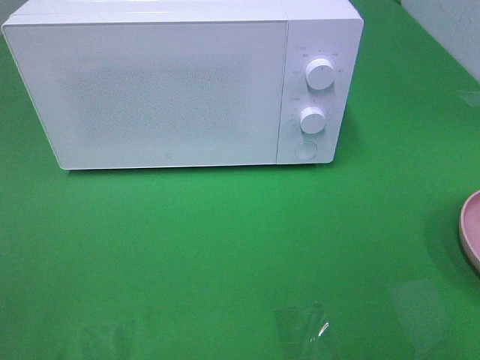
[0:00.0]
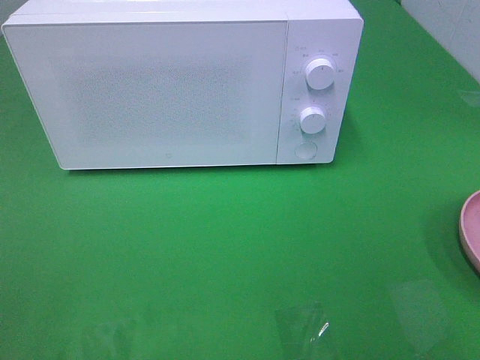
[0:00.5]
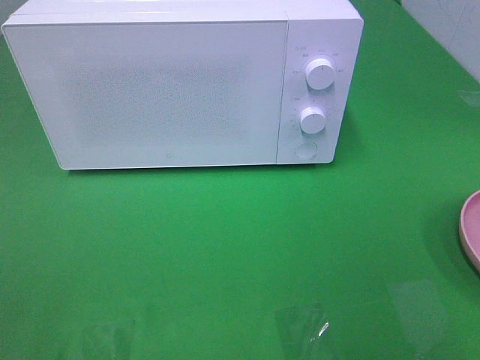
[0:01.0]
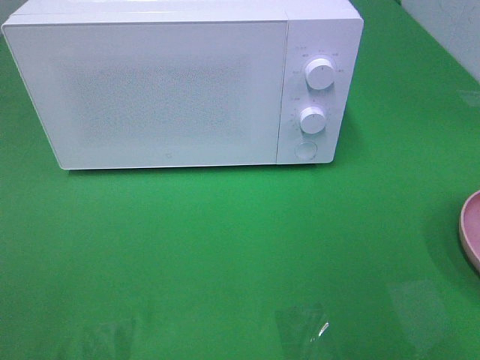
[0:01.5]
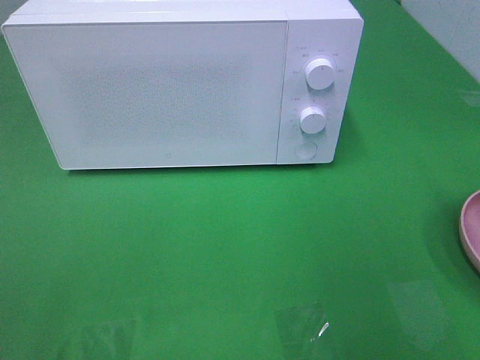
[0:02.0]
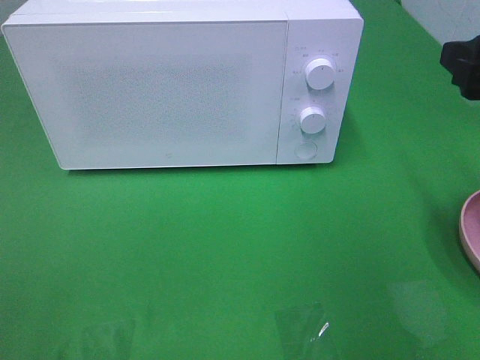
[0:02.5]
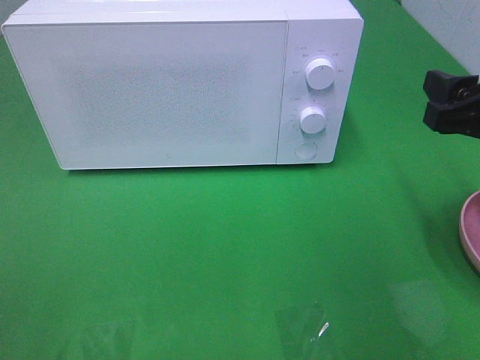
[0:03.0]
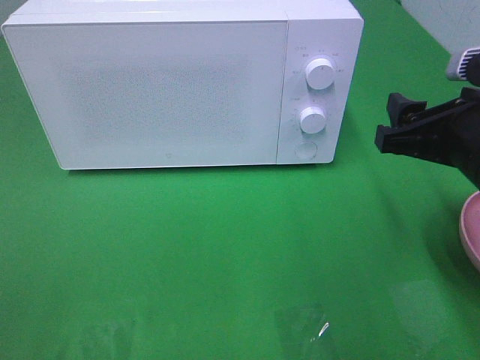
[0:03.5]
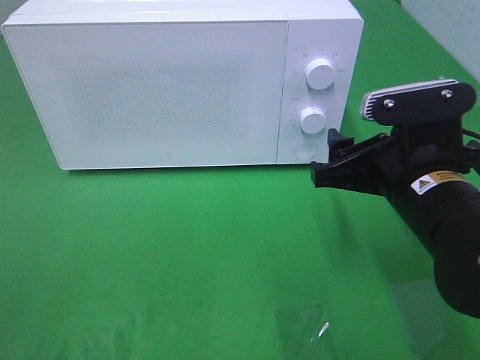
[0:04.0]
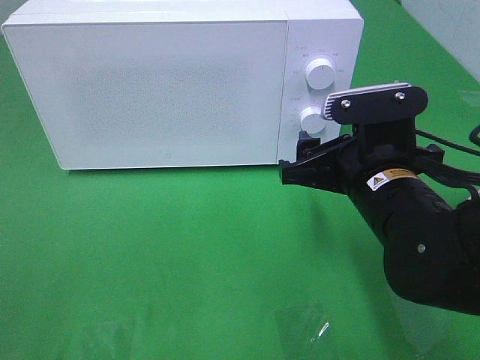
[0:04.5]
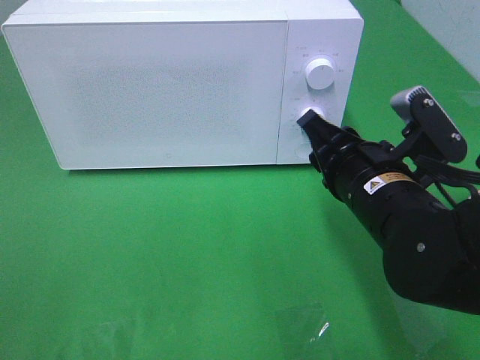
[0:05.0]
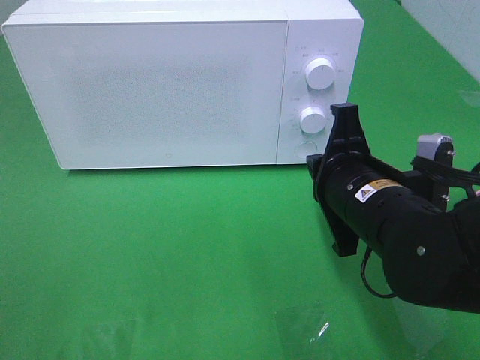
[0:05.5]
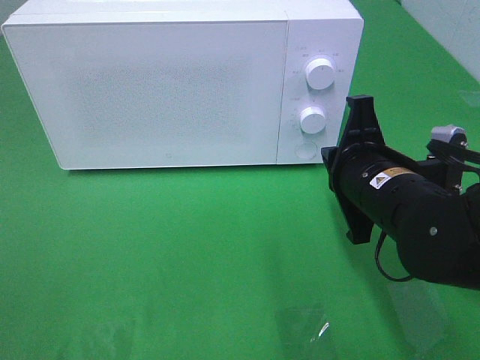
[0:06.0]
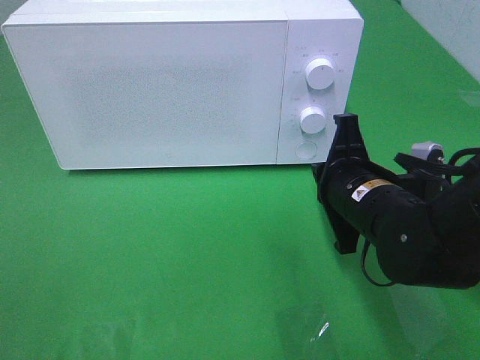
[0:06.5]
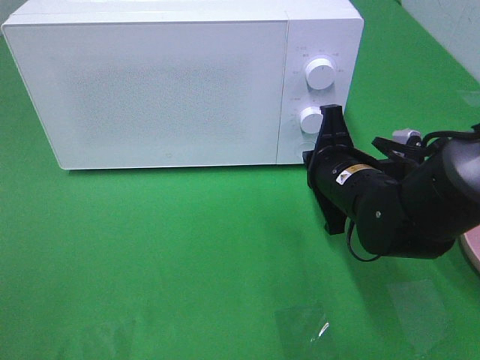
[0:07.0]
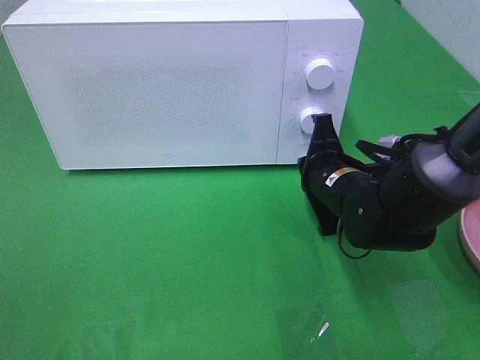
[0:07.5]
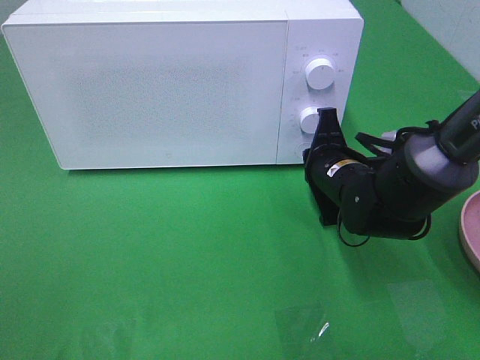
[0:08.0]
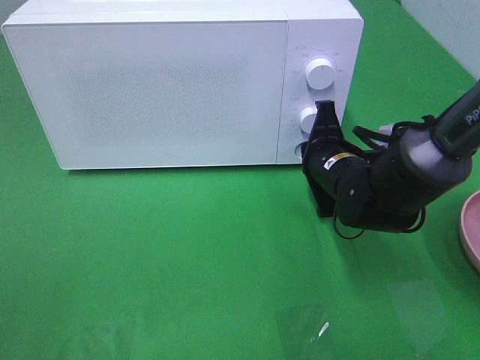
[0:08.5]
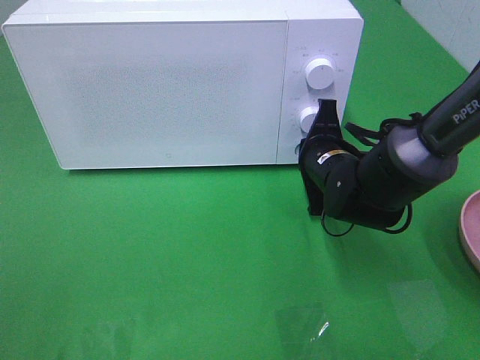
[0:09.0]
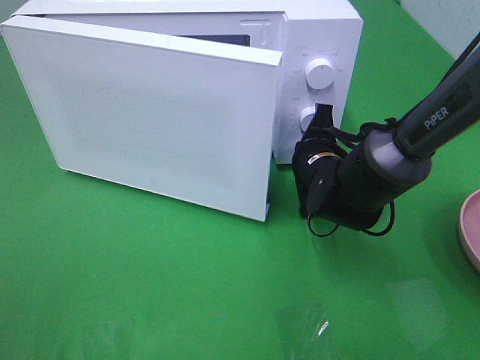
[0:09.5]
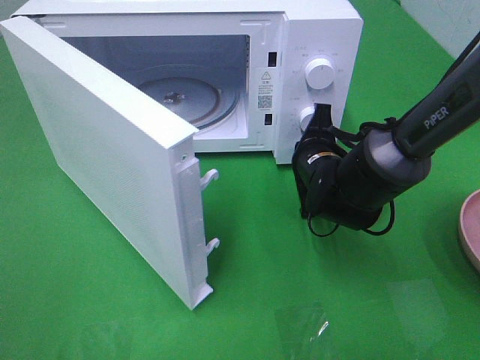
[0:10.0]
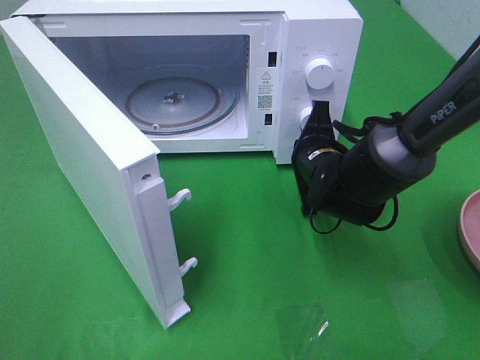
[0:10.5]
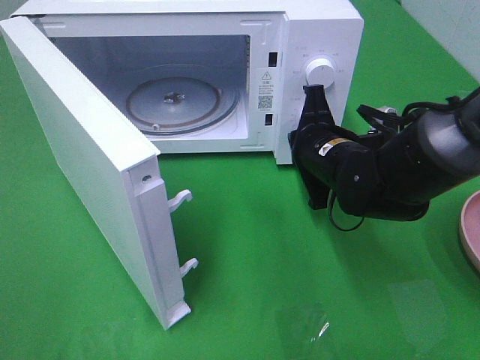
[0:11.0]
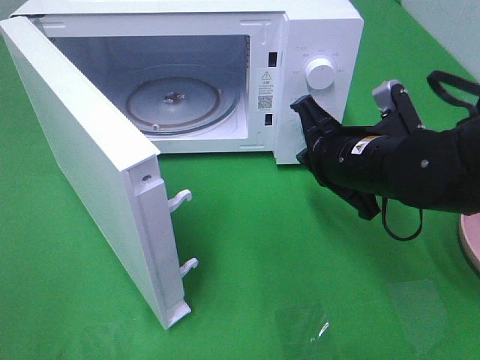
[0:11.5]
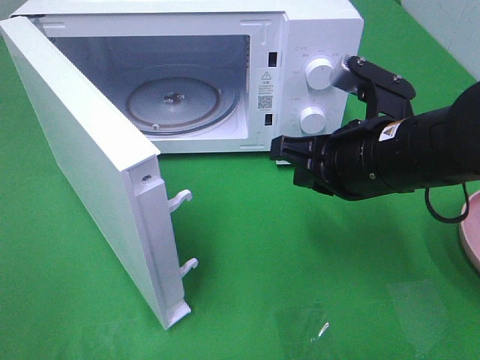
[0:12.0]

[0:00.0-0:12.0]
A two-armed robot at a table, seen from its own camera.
Task of the whole recording: Heat the burger.
Step, 0:00.0 to 0:10.5: Right hand: press the switch.
0:02.0 to 0:04.0: The right gripper goes some 20 cm downward and to the left.
0:04.0 to 0:06.0: The right gripper closes.
0:06.0 to 0:08.0: The right gripper is displaced forward and downward by roughly 10 cm.
0:10.0 to 0:12.0: The right gripper travels upward and backward by approximately 15 cm.

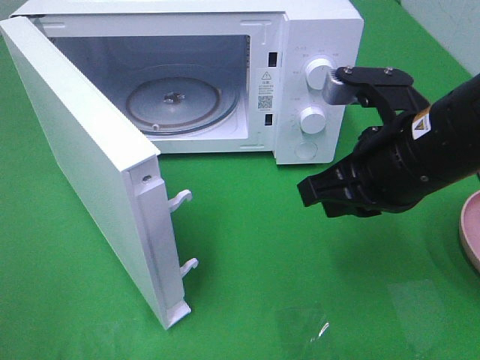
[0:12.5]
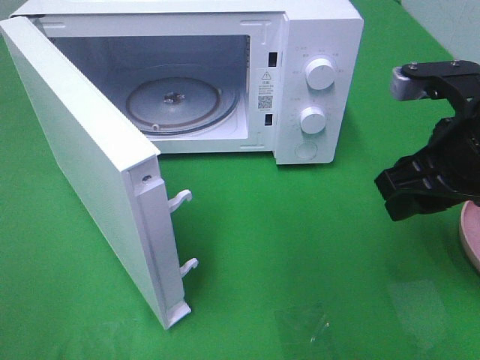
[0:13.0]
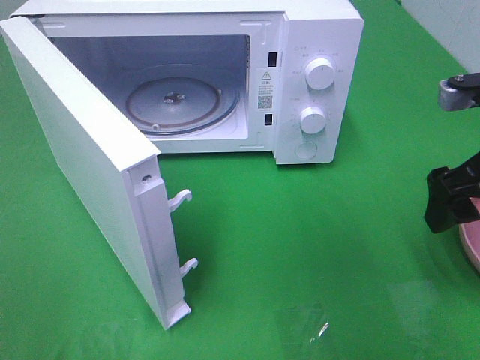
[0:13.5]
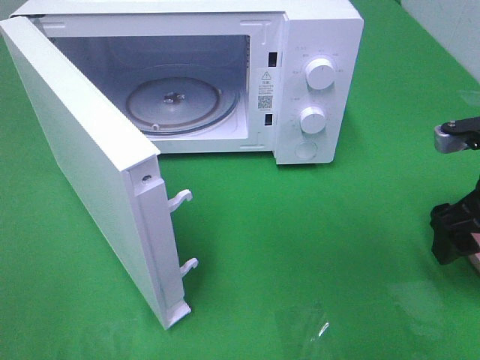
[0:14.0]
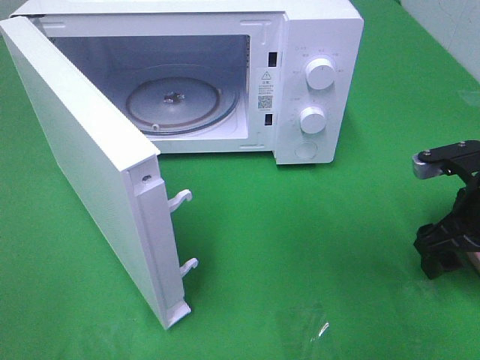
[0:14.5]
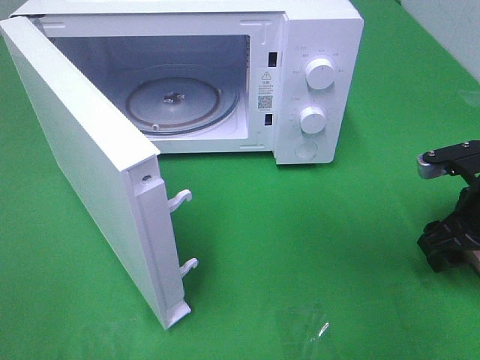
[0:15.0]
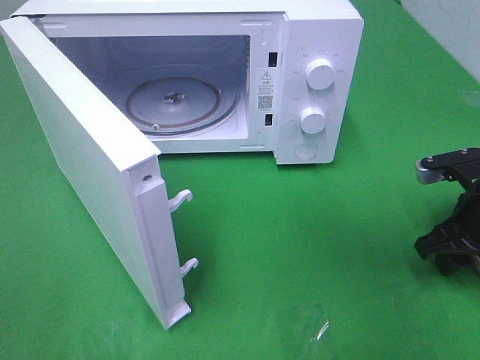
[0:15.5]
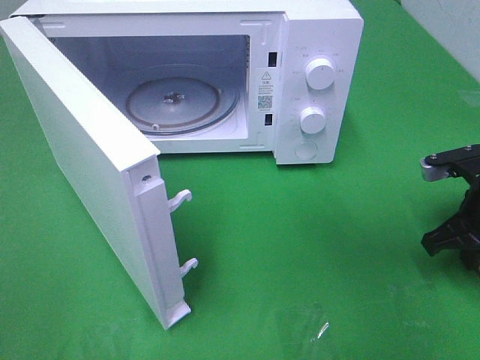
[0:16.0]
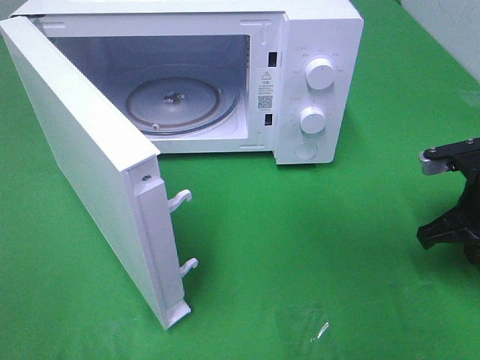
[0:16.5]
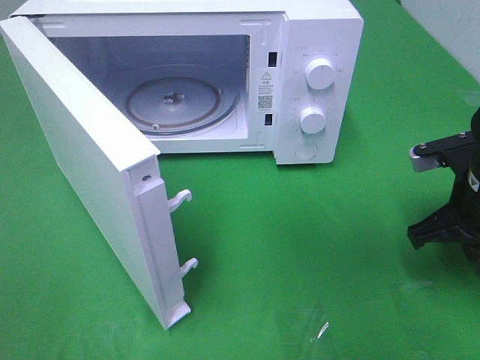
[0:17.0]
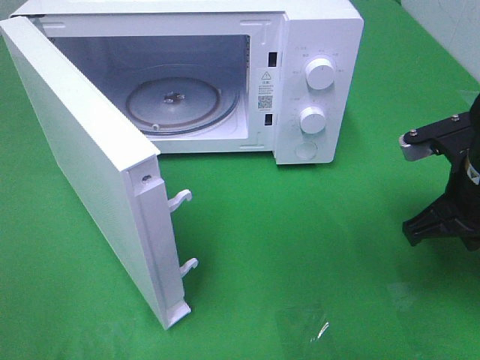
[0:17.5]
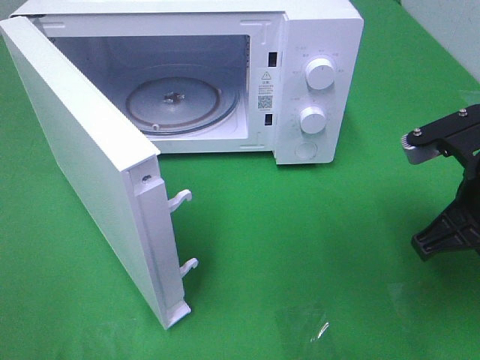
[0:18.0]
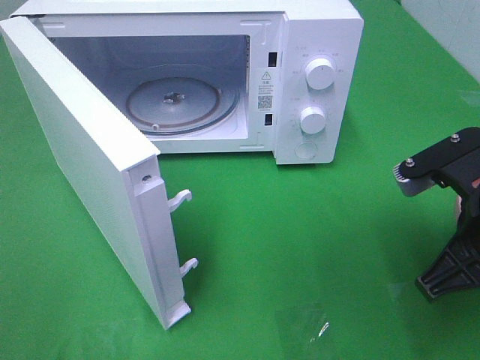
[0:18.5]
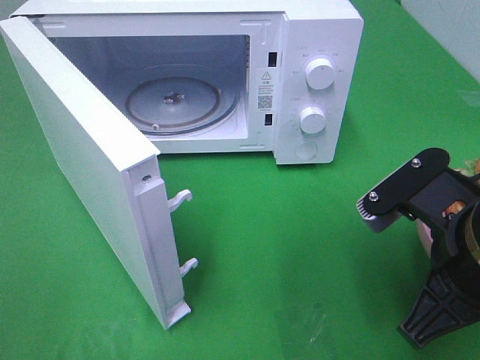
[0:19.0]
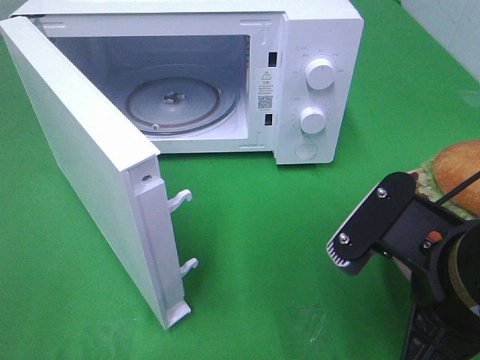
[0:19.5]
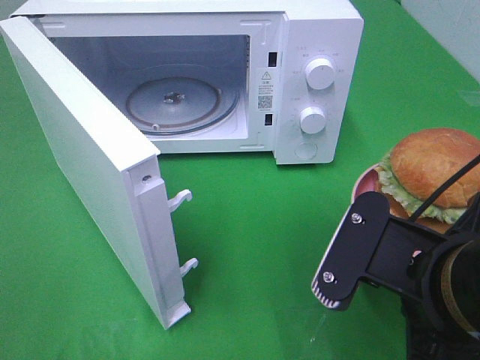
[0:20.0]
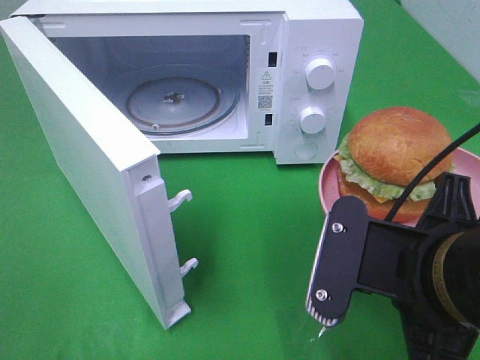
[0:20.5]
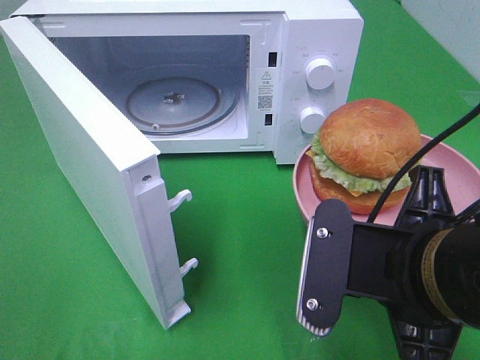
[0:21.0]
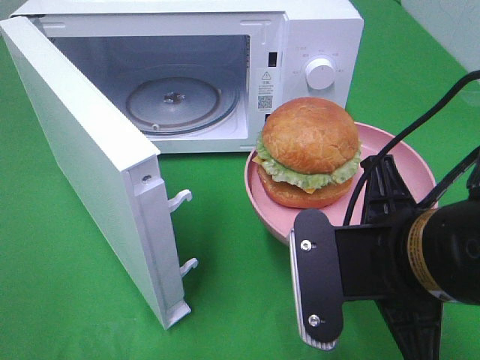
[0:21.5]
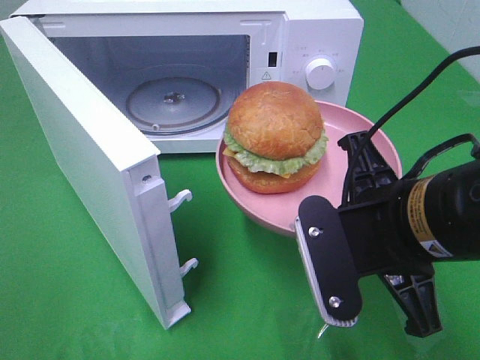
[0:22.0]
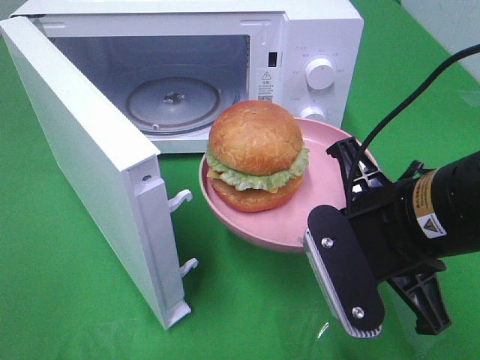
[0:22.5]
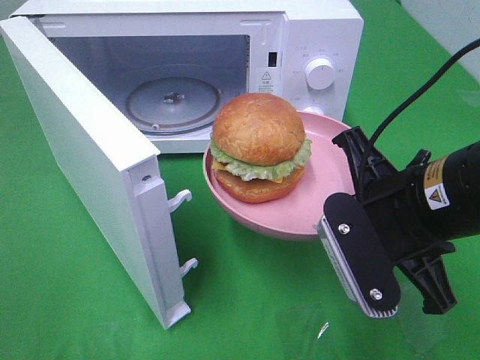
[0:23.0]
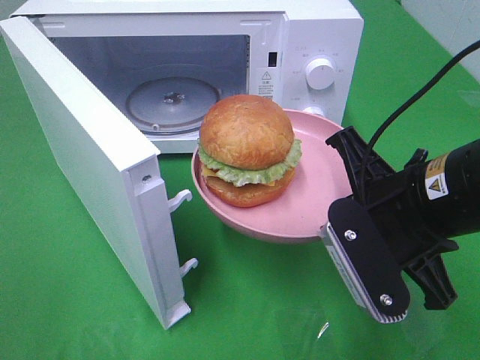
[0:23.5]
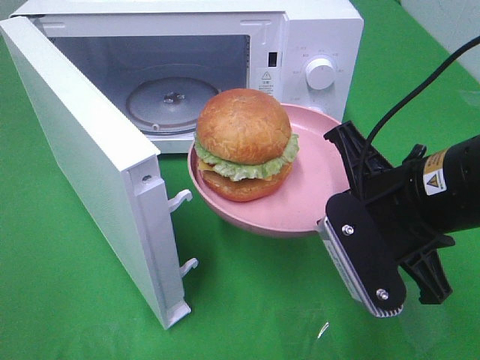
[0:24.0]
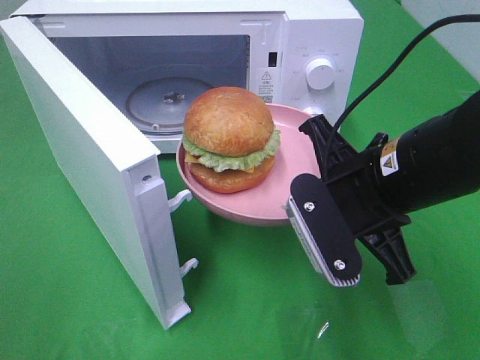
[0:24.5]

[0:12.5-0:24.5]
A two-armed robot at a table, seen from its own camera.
Task of the whole recording: Heat the burger.
Step, 0:12.5 to 0:15.5: Right hand: grab the plate with the hamburger.
0:12.5 to 0:14.5: The right gripper heads to the right and downward, covering some 15 cm, and opens its fingers.
0:14.5 to 0:16.5: The right gripper closes up.
0:16.5 to 0:18.5: The right gripper heads backward, to the left and upward, covering some 15 cm.
0:18.5 to 0:20.5: The right gripper shifts some 10 cm to the left and backward.
0:20.5 to 0:22.5: The right gripper moves forward, about 5 cm.

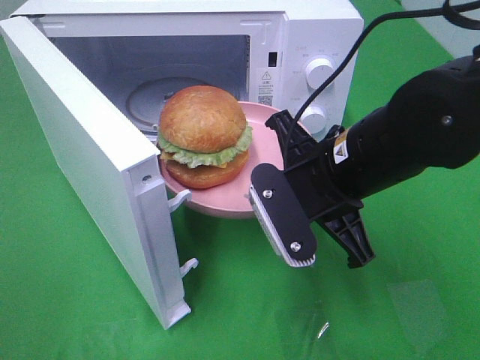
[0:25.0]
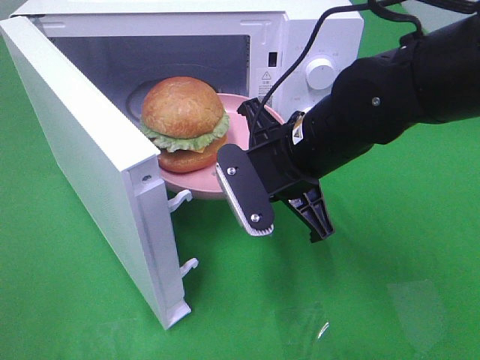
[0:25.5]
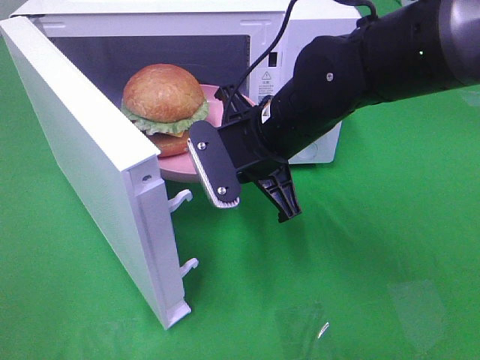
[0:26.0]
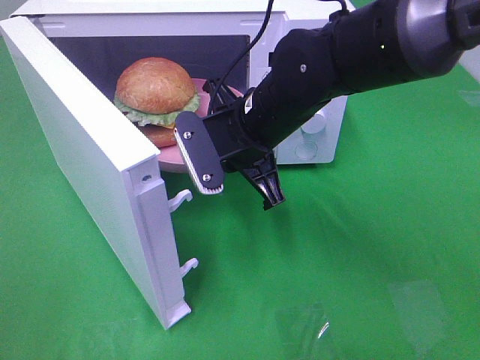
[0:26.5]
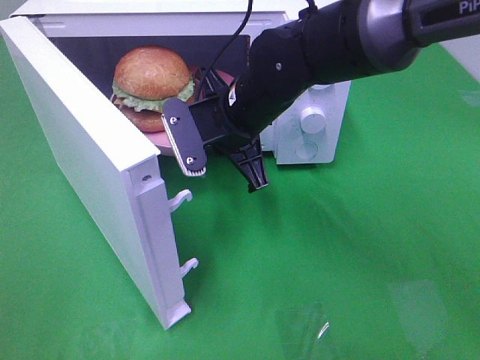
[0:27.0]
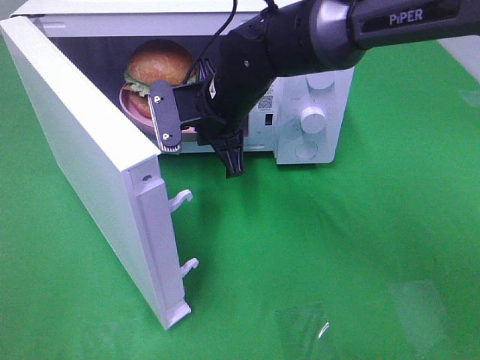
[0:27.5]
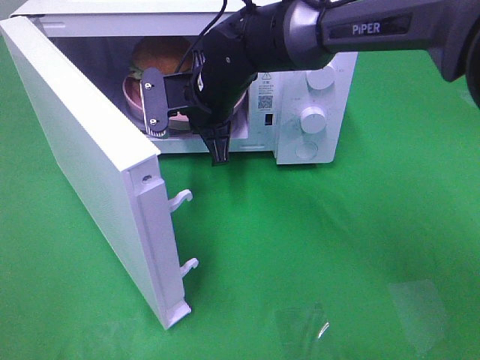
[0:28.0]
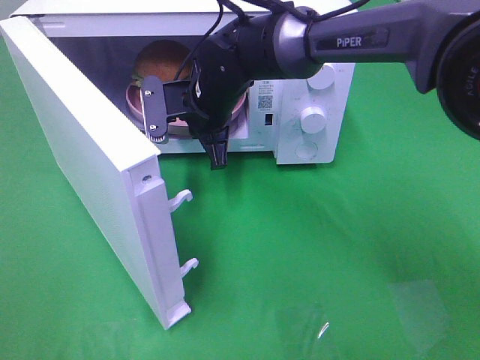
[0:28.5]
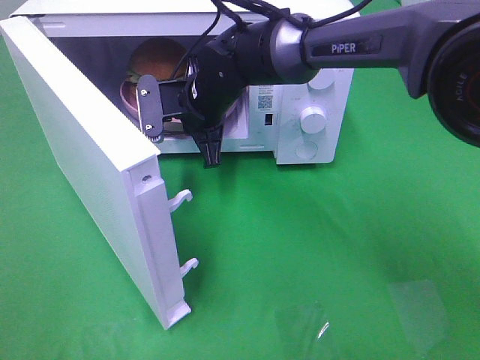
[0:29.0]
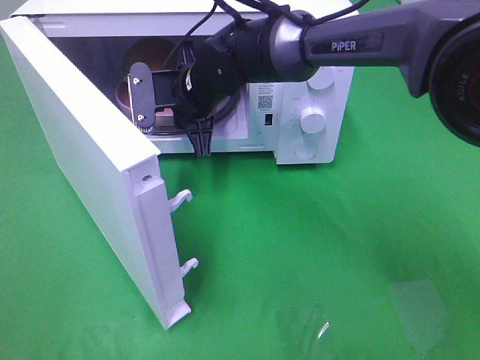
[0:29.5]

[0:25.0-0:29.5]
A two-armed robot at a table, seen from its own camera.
Task of the whole recording: Heat the burger.
Step, 0:25.0 to 0:29.0: Right hand: place the plate in the microwave.
0:25.0 to 0:27.0: The right gripper moves forward and to the left, approximately 15 cm.
0:27.0 to 0:29.5: The right gripper moves forward and to the left, roughly 10 cm.
